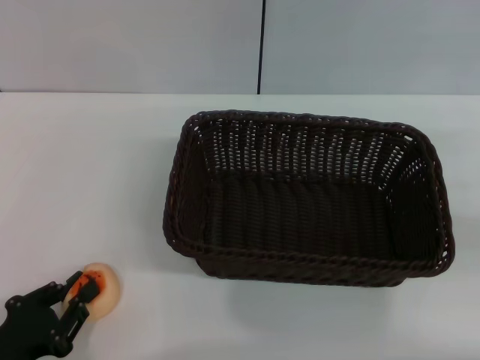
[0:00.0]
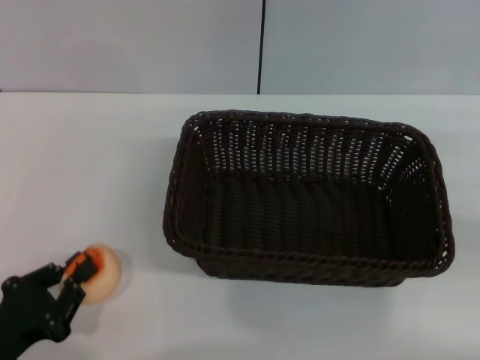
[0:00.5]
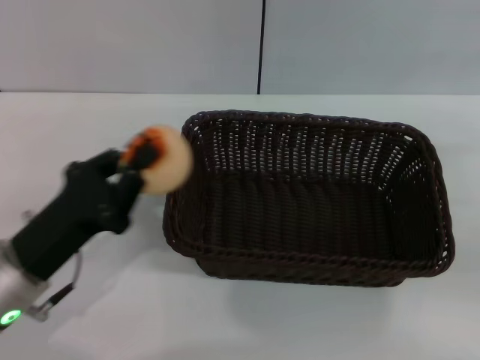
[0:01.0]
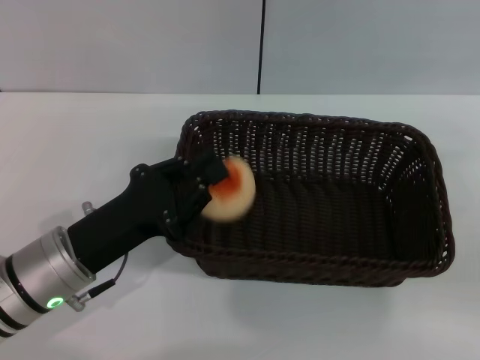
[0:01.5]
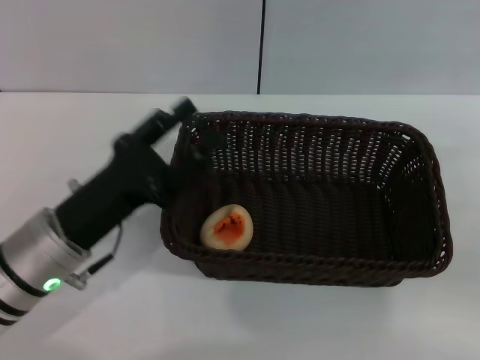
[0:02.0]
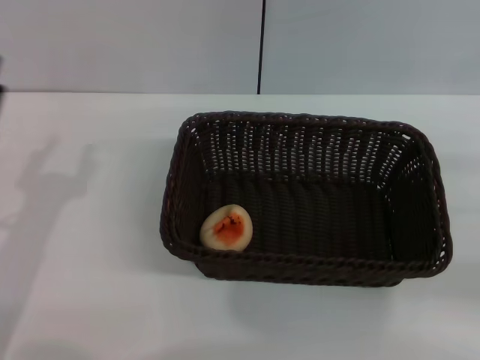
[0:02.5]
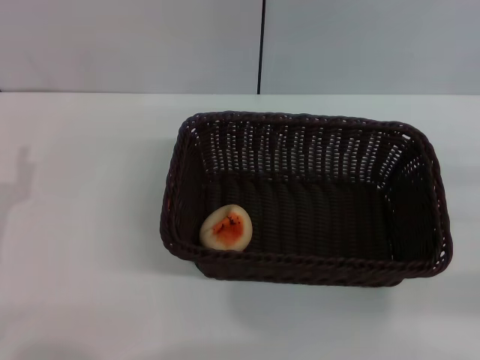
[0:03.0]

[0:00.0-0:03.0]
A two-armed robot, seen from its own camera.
Step, 0:01.0 to 0:01.5: Place the egg yolk pastry into the basket with the left gripper.
0:00.0 to 0:01.5: The left gripper moves forward, to the right and upward, some 15 cm, and closes.
0:01.5 to 0:03.0: The left gripper shifts some 10 cm to the left, and opens up.

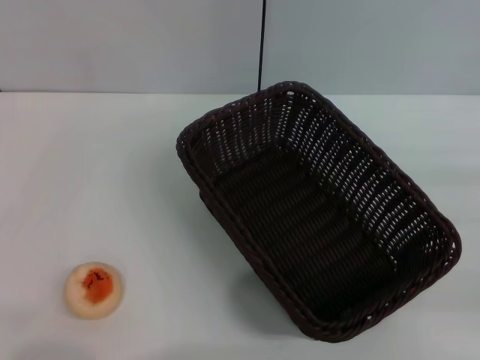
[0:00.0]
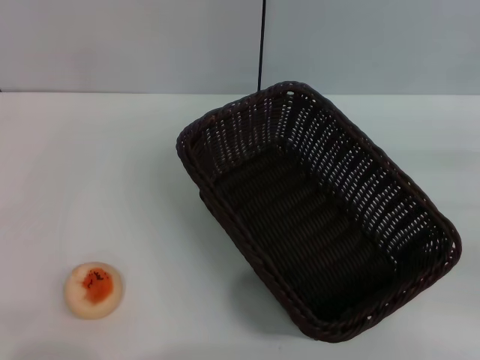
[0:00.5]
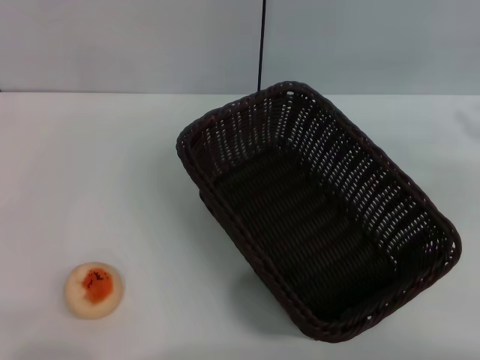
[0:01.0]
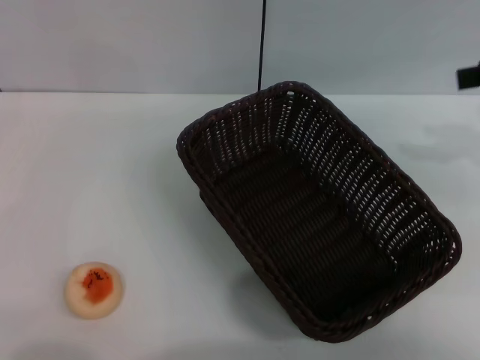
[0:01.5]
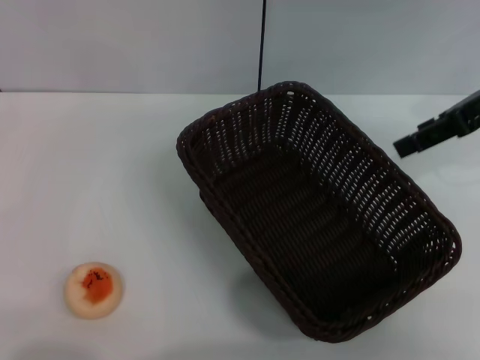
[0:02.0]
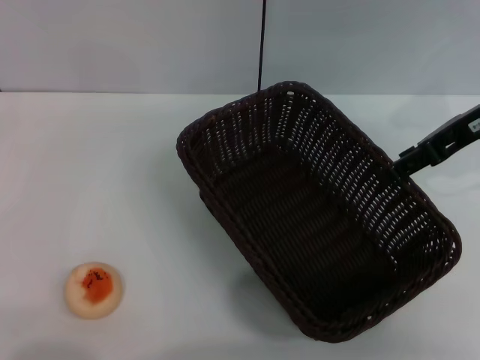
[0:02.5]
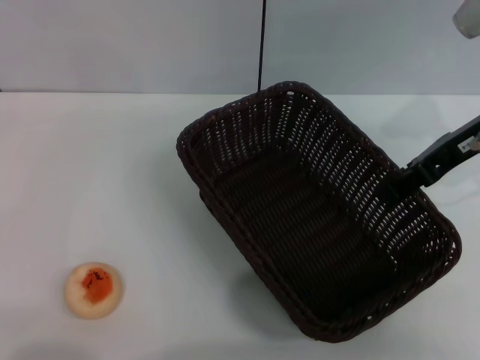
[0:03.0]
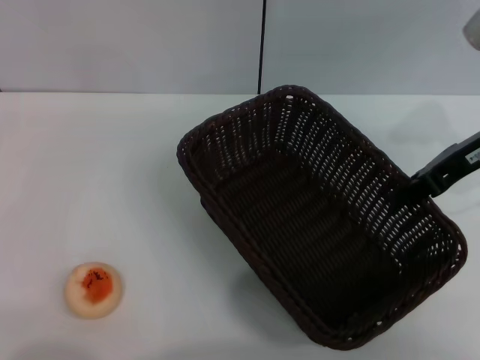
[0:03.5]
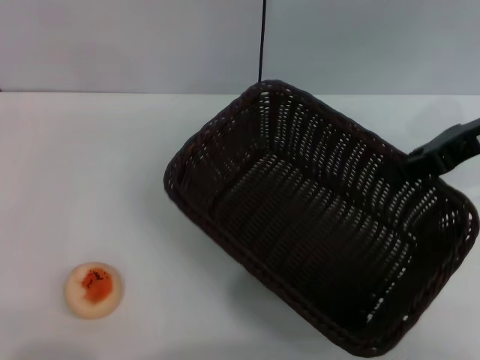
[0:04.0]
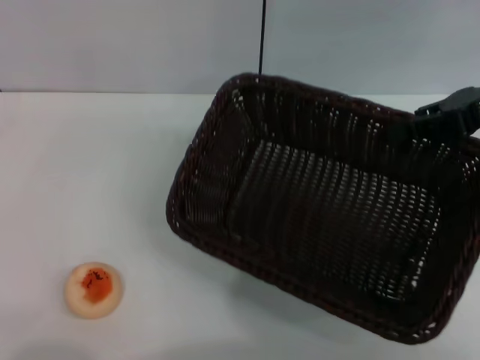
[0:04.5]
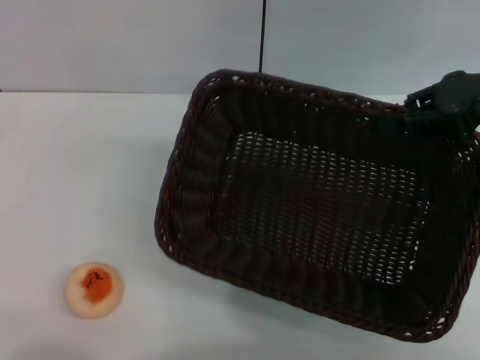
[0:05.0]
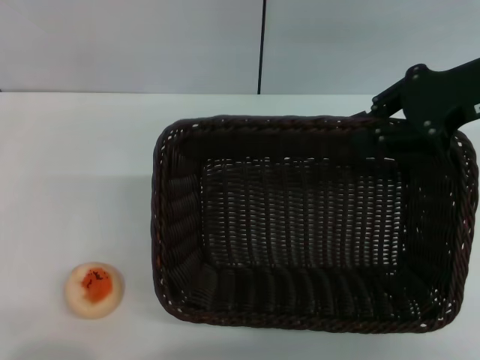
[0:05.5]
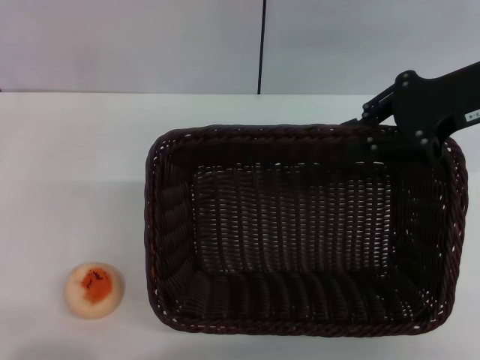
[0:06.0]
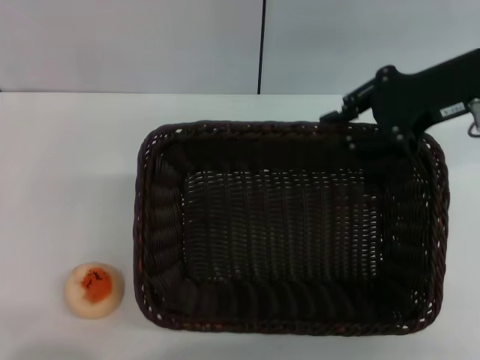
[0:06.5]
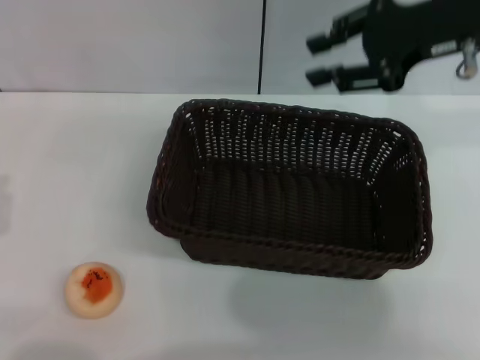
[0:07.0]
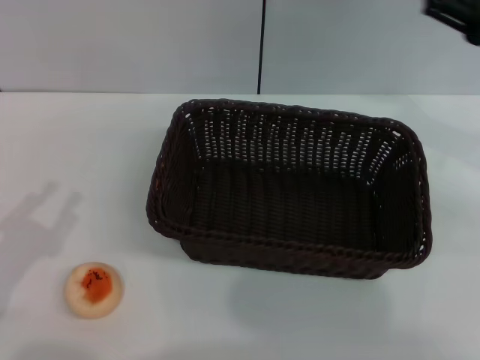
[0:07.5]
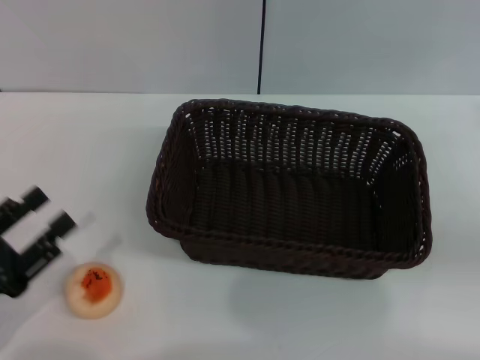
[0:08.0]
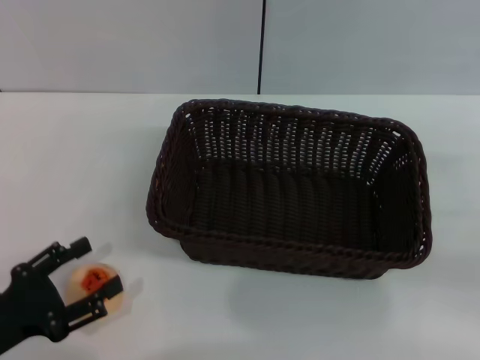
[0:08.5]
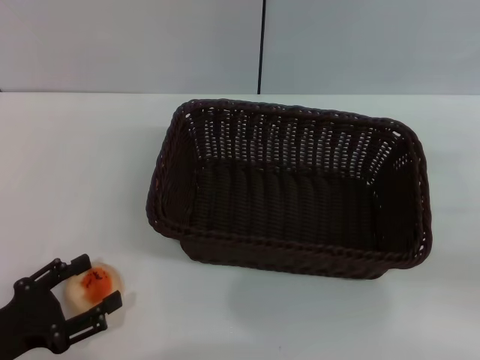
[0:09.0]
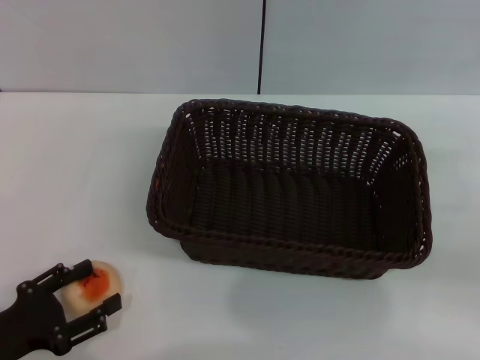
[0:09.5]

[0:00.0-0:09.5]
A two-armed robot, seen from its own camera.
Step, 0:00.0 to 0:06.5: Move the basket to the center of view with the right gripper.
0:00.0 to 0:02.0: The right gripper is displaced upward, forward and to the left by roughly 25 cm, and opens up.
0:02.0 to 0:04.0: The right gripper closes.
0:05.5 to 0:07.5: The right gripper moves to the right, about 5 cm, and opens up.
0:07.5 to 0:09.5: The right gripper heads downward, backward and to the right, covering roughly 15 cm, while the left gripper changes place by roughly 5 cm, and opens its fingers.

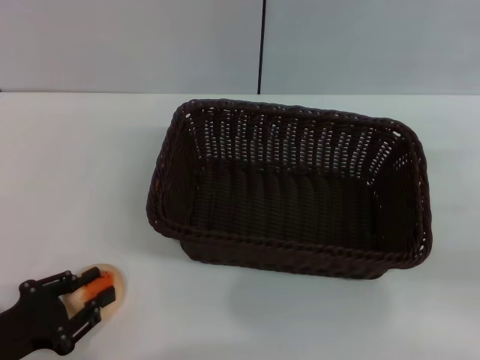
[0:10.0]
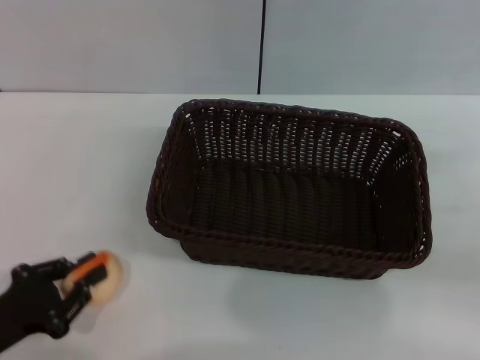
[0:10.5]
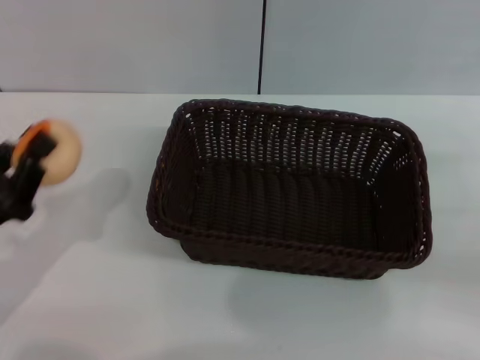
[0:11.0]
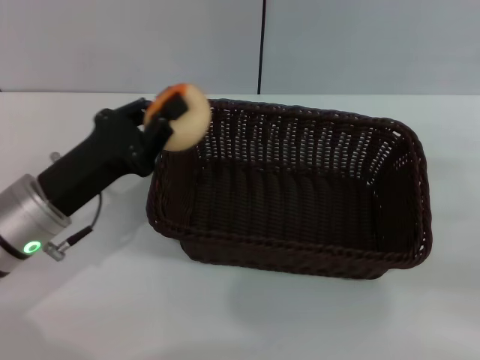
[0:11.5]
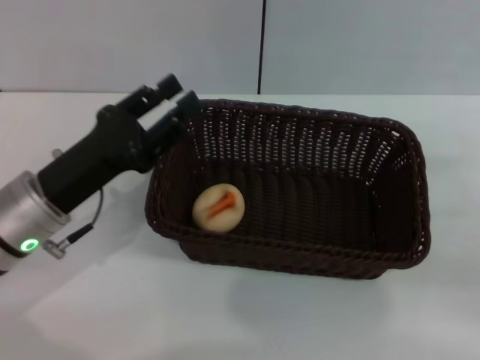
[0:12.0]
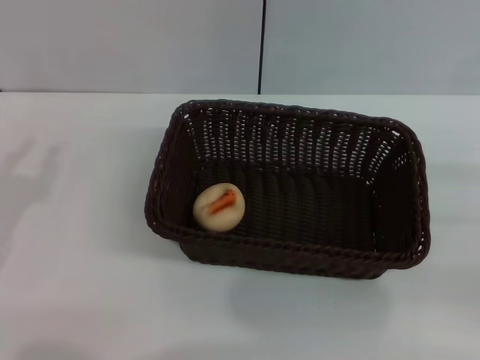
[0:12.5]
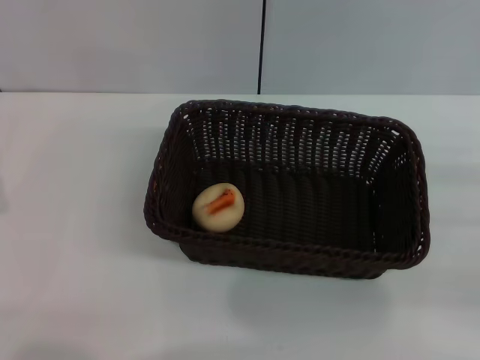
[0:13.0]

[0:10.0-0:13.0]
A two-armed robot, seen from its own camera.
Step, 0:11.0 to 0:11.5: Place the egg yolk pastry into the basket with the left gripper.
0:10.0 to 0:11.5: The left gripper moves forward, to the right and upward, some 15 cm, and closes.
0:11.5 to 0:13.0: The left gripper moves to the left and backward, some 15 cm, and opens, then closes once more.

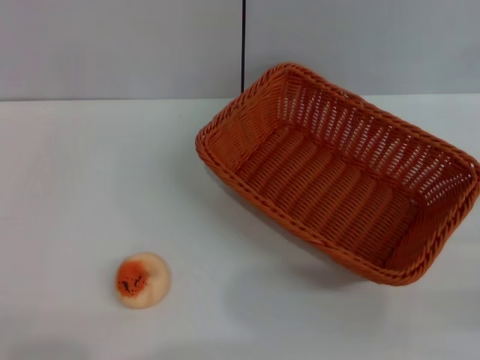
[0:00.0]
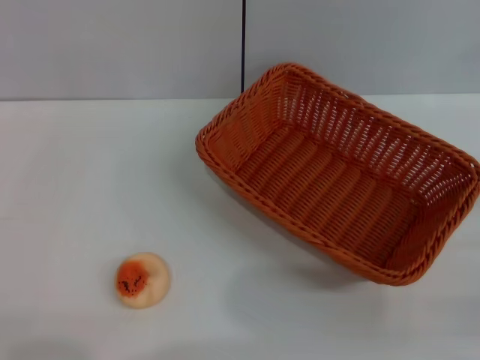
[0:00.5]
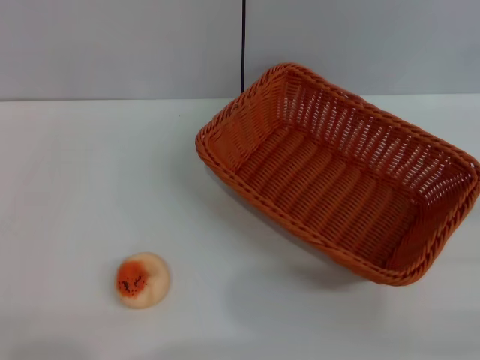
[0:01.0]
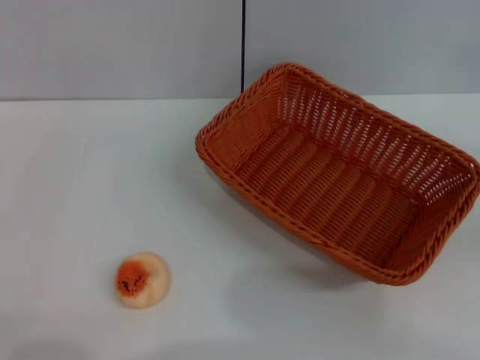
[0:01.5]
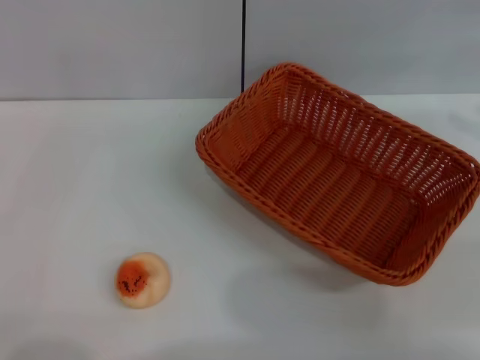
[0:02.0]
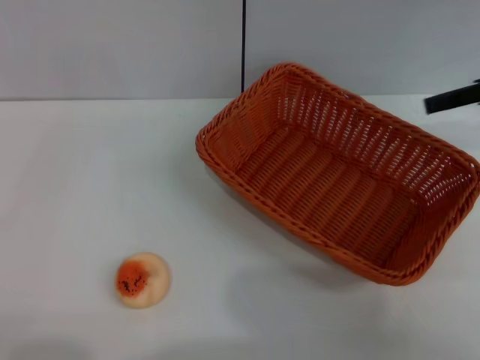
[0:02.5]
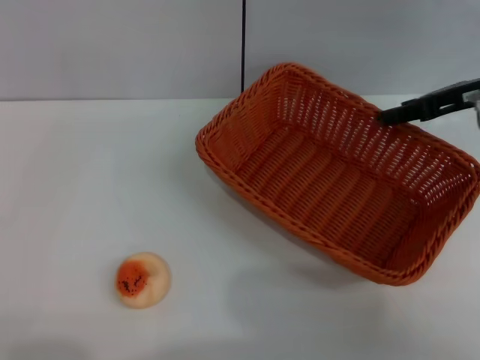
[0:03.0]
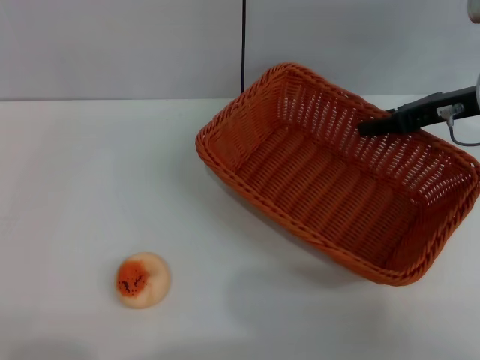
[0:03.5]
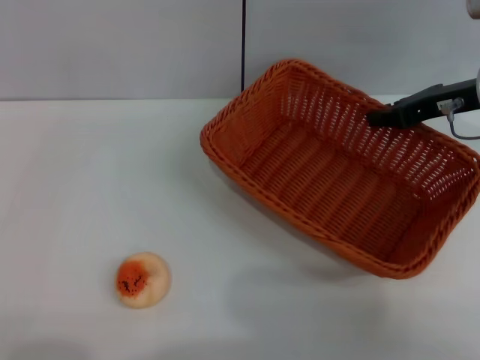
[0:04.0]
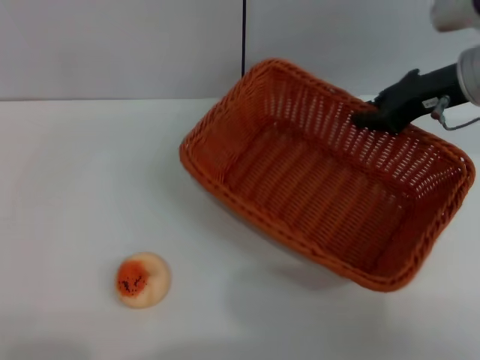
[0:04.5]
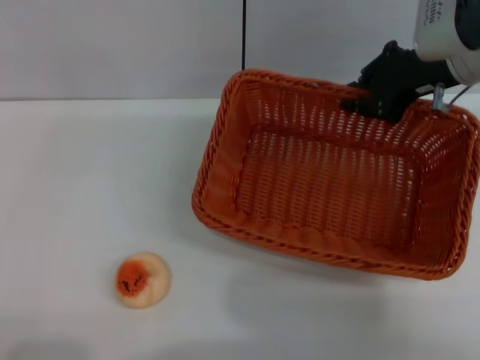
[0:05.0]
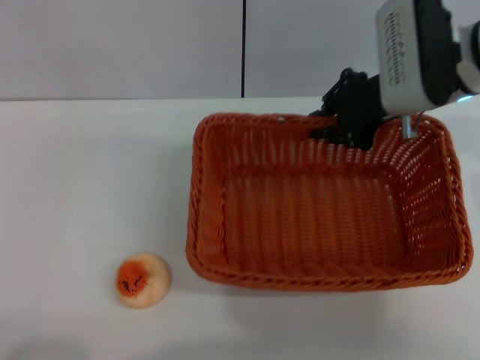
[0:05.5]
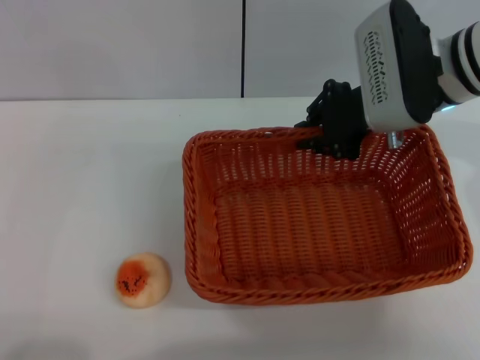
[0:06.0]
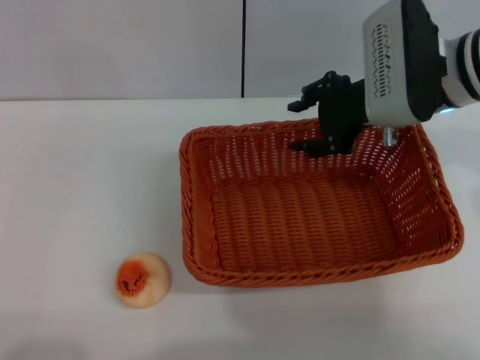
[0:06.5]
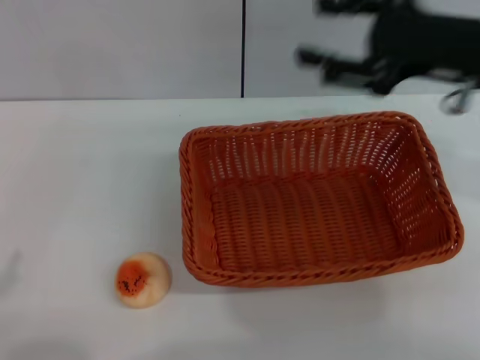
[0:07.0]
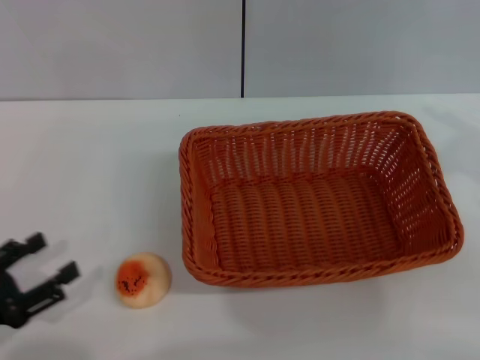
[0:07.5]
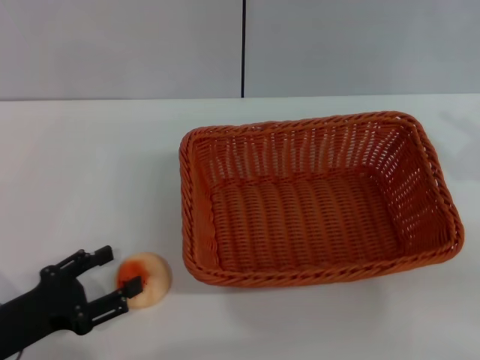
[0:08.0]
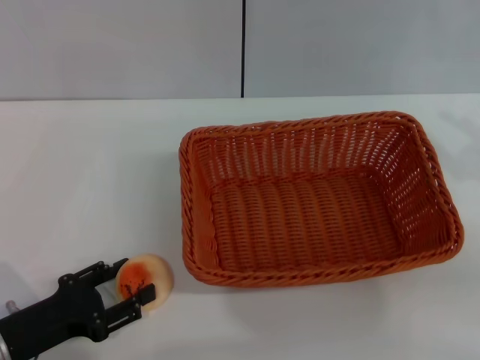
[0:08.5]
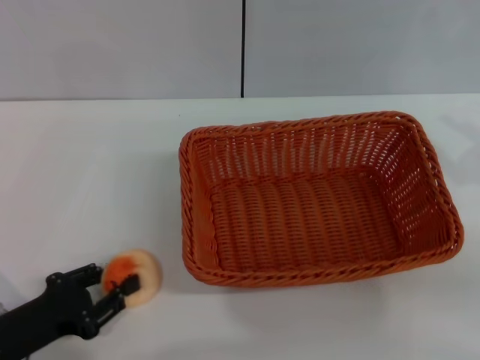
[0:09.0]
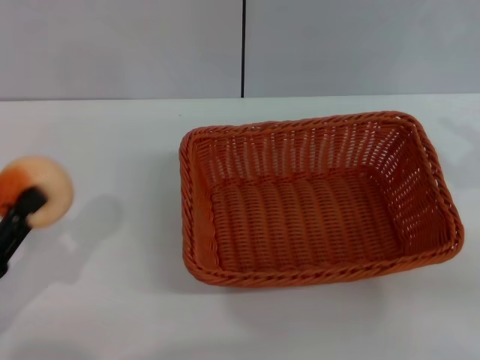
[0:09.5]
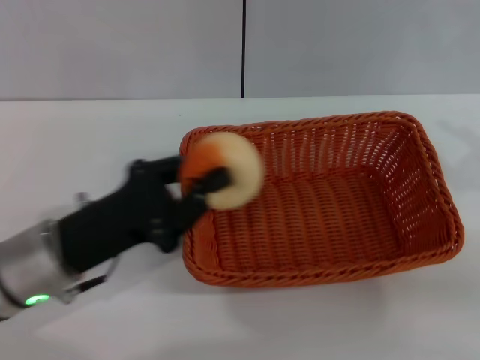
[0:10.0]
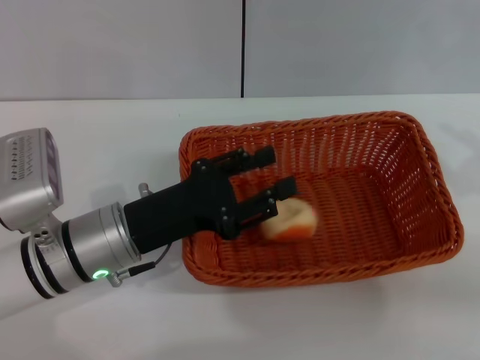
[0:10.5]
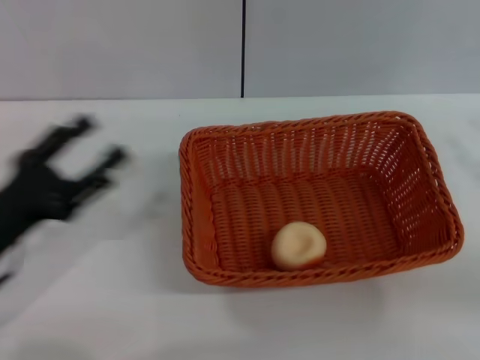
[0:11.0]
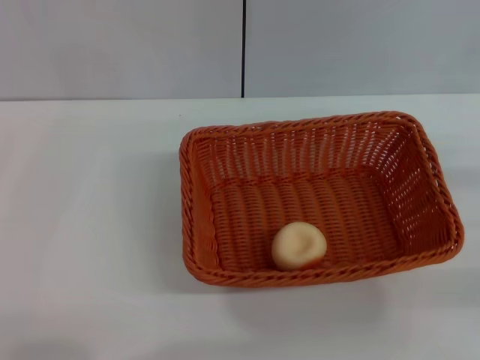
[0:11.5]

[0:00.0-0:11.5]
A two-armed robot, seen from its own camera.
Step, 0:00.0 to 0:06.5: Move the basket to the center of view with the right gripper.
Step, 0:07.0 to 0:09.0: Pick up the egg yolk pastry with the left gripper.
Step, 0:09.5 to 0:10.5: Place the egg yolk pastry into the basket with the left gripper.
0:02.0 to 0:04.0: The right gripper shifts about 15 cm to the left, downward and forward, and closes.
0:04.0 to 0:06.0: The right gripper heads to the left, covering roughly 10 cm, and closes up.
0:06.0 to 0:07.5: The right gripper shifts about 20 cm to the right and backward, and opens. The left gripper moves forward, approximately 5 cm.
0:07.5 to 0:09.5: The left gripper closes.
0:09.5 to 0:11.5: The right gripper goes some 10 cm downward. The left gripper moves backward, about 5 cm, goes to the right and returns, some 15 cm each way, and opens up.
